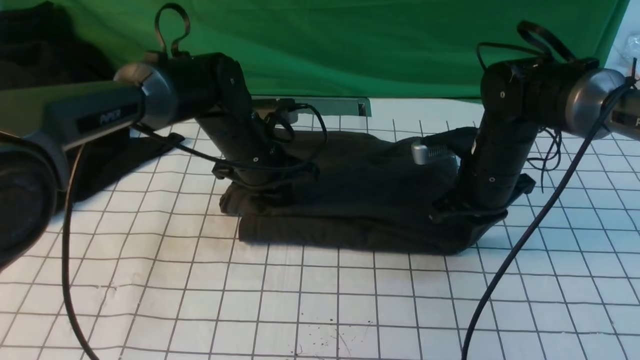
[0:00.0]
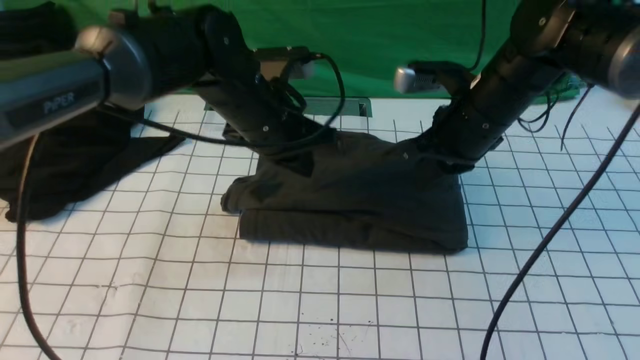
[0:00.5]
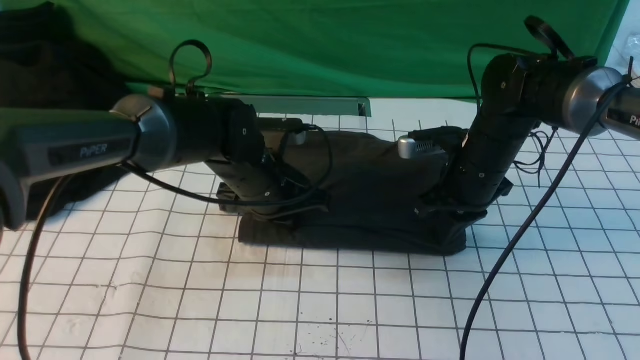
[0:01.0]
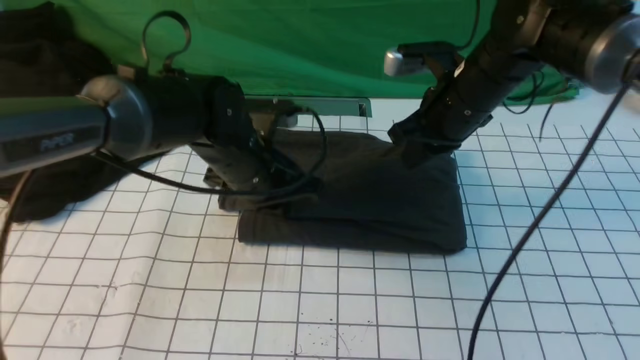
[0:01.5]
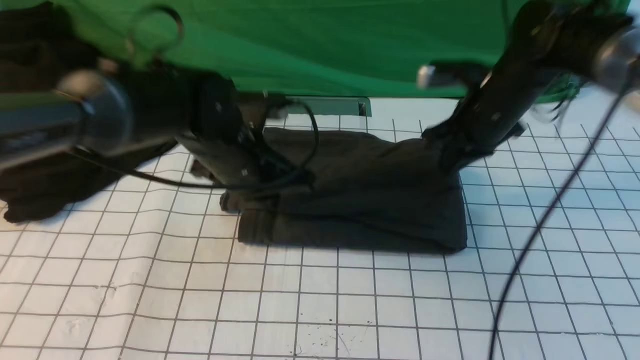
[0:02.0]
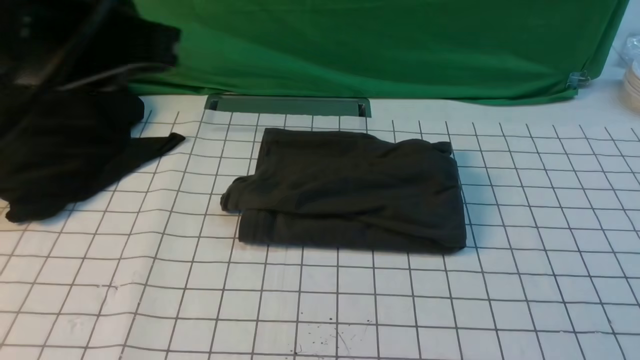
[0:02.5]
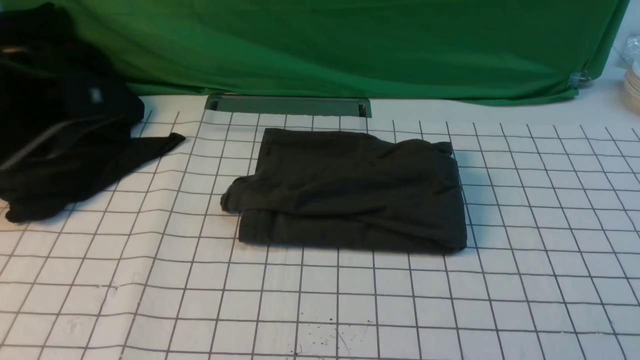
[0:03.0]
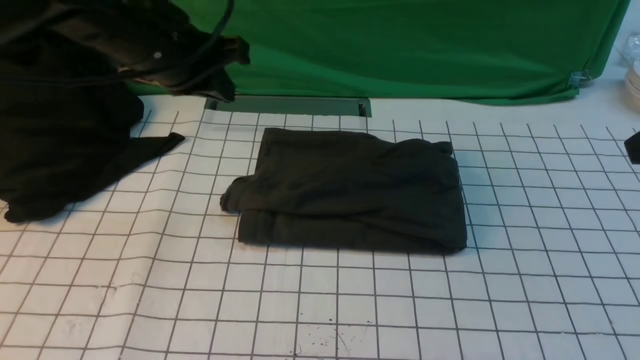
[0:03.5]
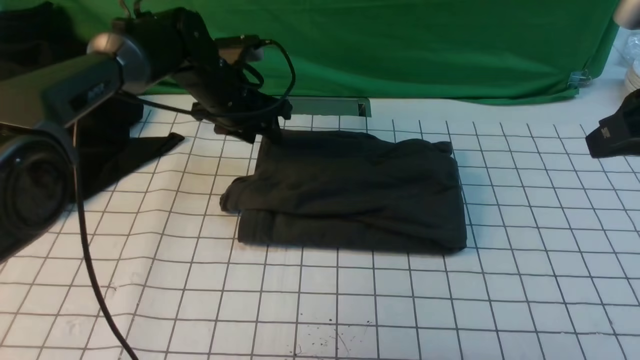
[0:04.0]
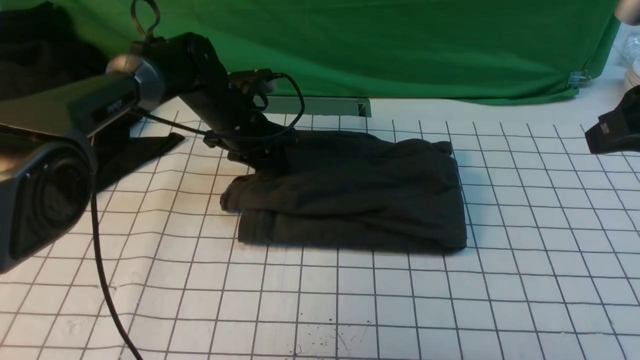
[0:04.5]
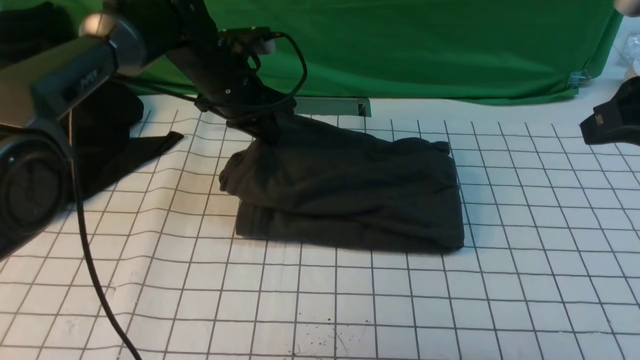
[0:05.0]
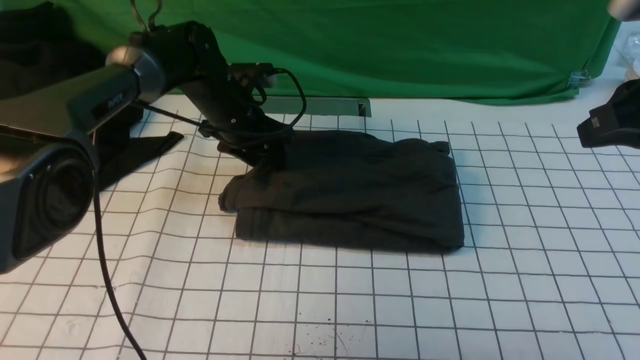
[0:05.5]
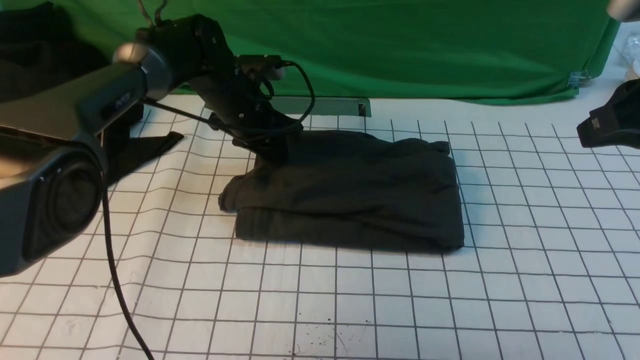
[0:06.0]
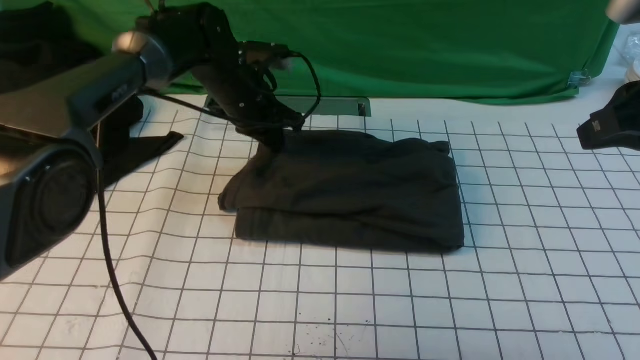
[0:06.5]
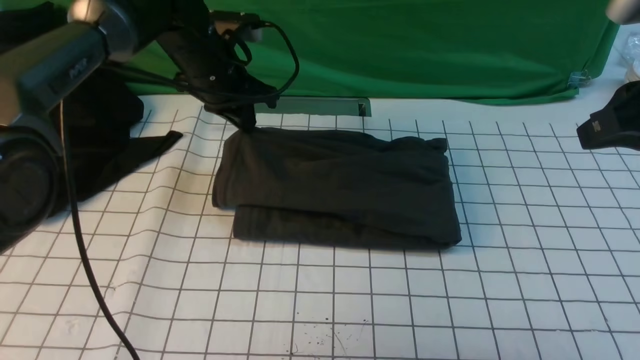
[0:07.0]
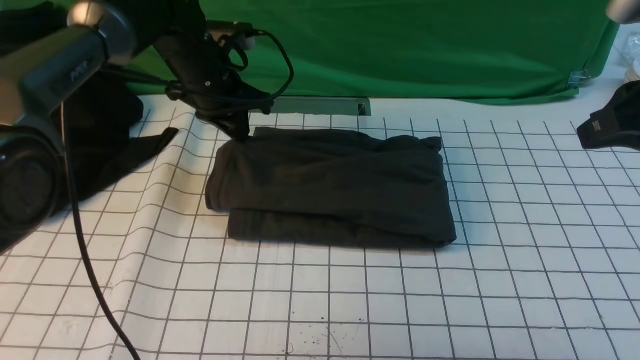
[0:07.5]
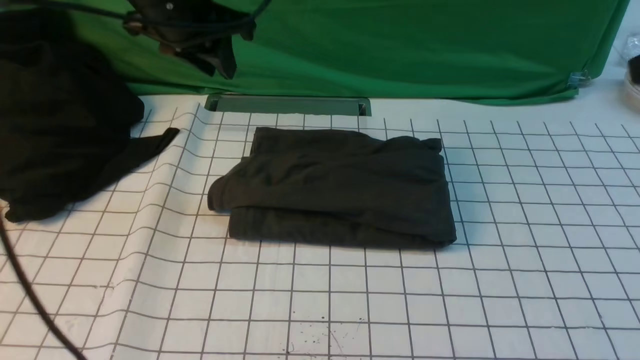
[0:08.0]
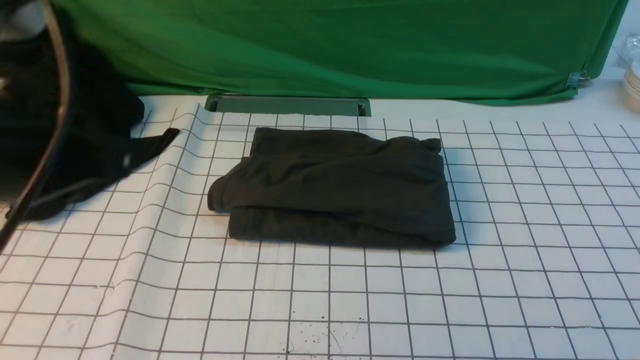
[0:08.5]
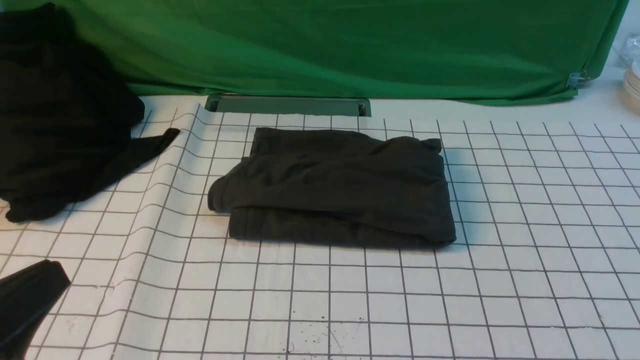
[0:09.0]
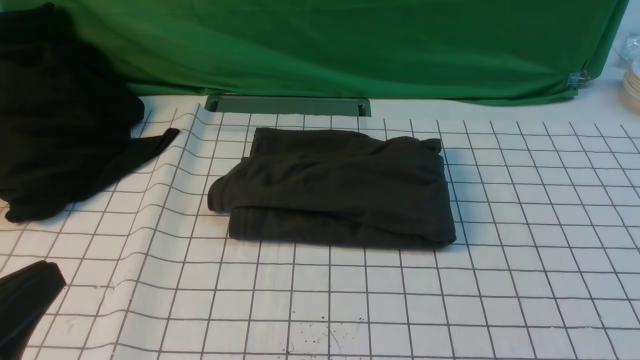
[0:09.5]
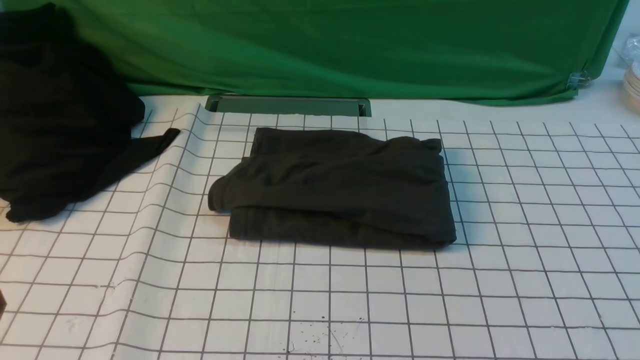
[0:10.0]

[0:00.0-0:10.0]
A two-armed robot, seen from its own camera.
0:00.0 to 0:02.0: The right gripper shifts about 10 cm upward; the left gripper heads backward and upward, covering some 10 cm.
0:02.0 to 0:04.0: The left gripper is displaced forward and downward by some 15 cm, and opens its fingers. Meanwhile the right gripper goes some 20 cm backward, upward and to the right.
0:04.0 to 0:06.0: The left gripper closes up.
0:06.0 to 0:08.0: The left gripper moves upward and backward, about 20 cm; the right gripper travels backward and upward by some 10 cm.
0:08.0 to 0:10.0: The right gripper moves backward and downward, some 20 cm, and opens its fingers. The left gripper travels backward by some 35 cm, and closes its fingers.

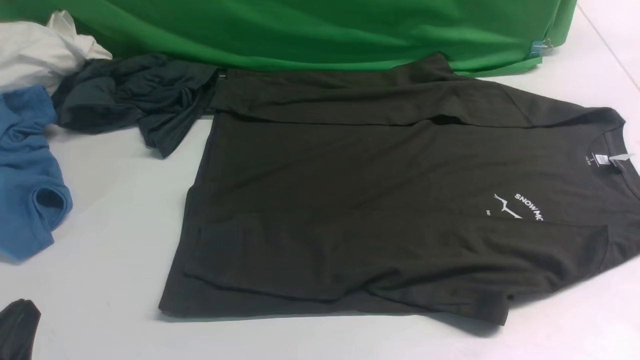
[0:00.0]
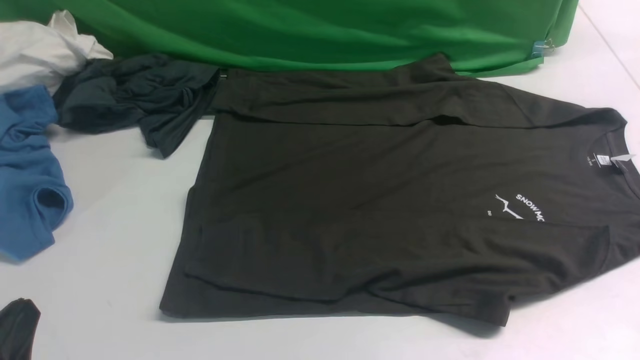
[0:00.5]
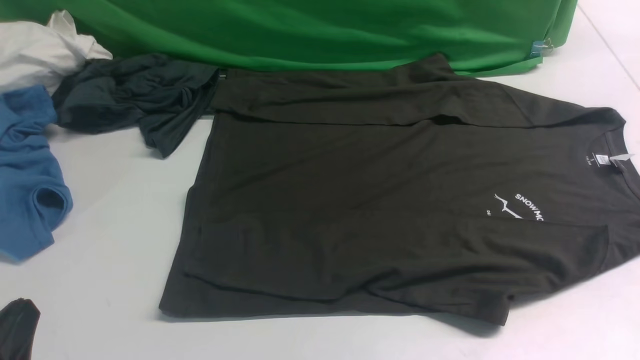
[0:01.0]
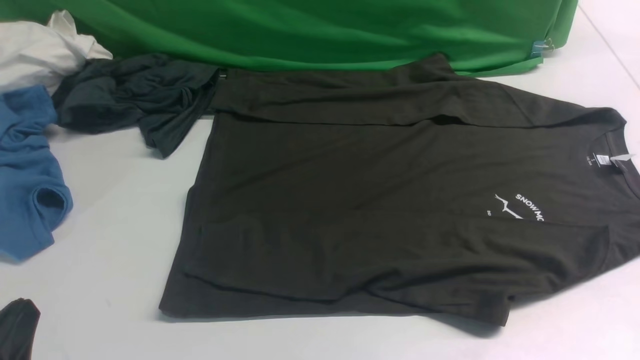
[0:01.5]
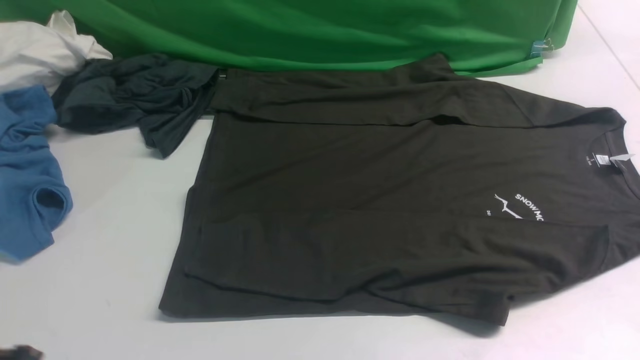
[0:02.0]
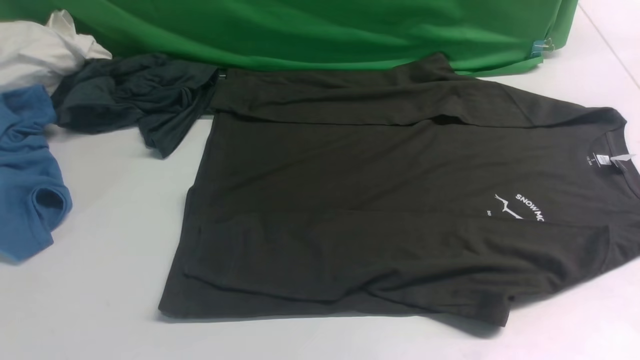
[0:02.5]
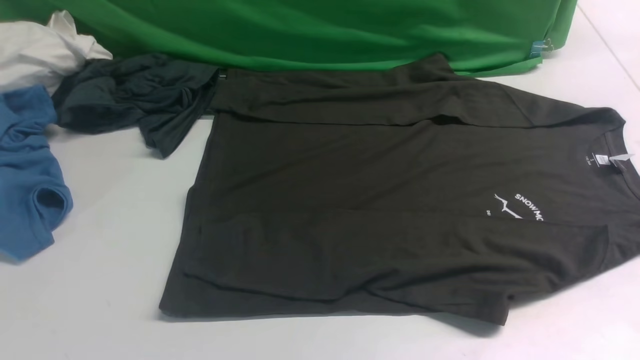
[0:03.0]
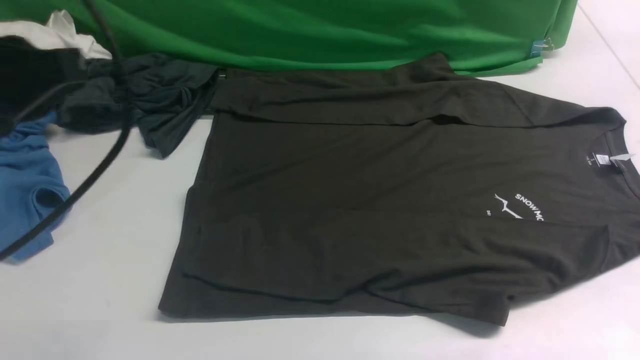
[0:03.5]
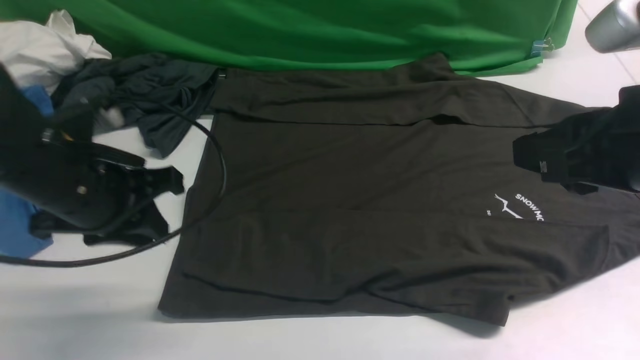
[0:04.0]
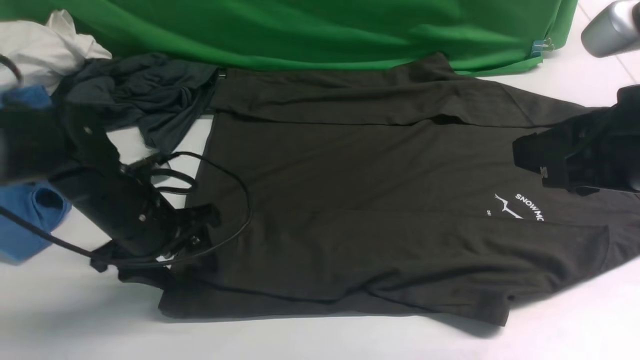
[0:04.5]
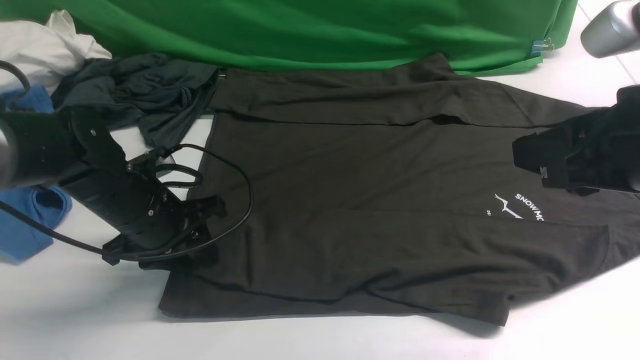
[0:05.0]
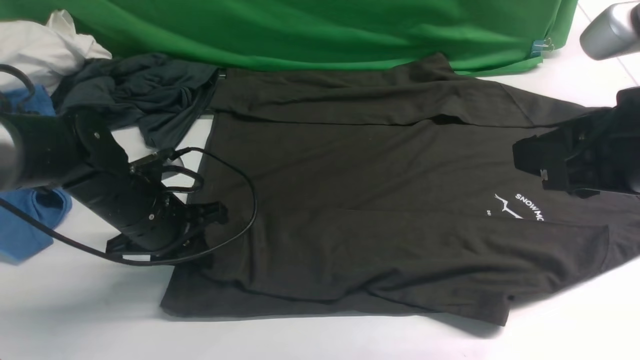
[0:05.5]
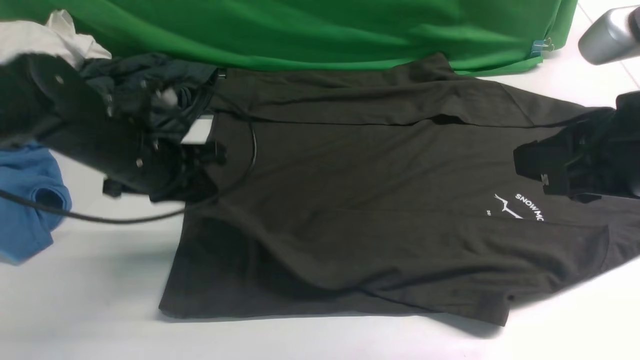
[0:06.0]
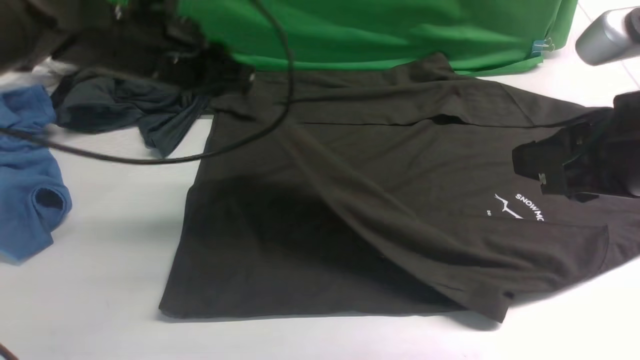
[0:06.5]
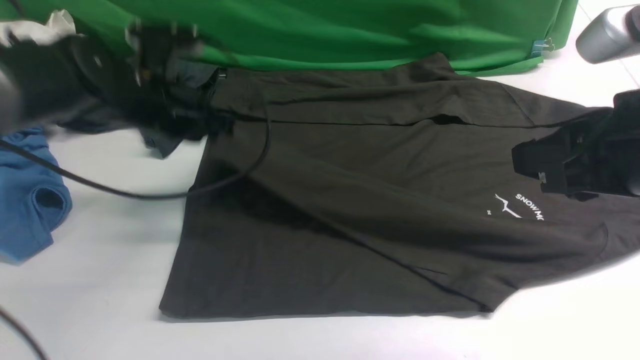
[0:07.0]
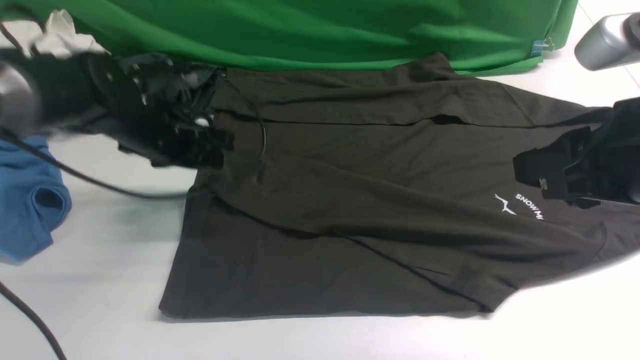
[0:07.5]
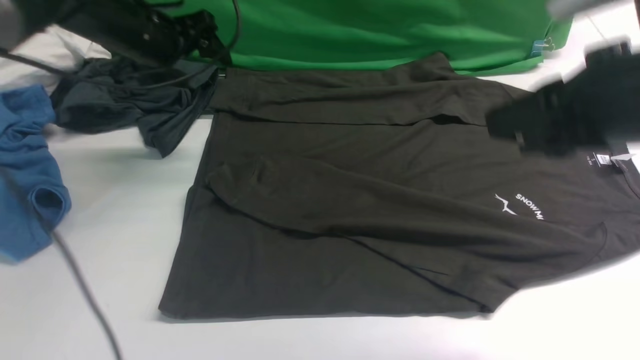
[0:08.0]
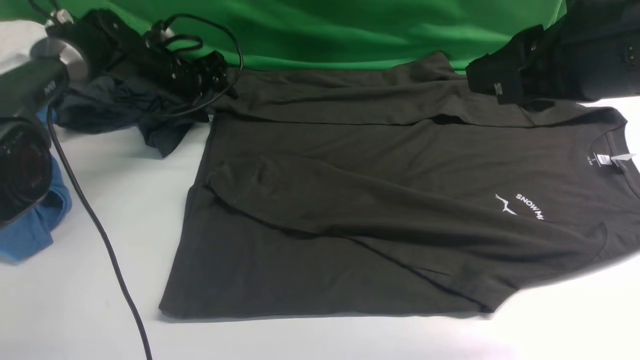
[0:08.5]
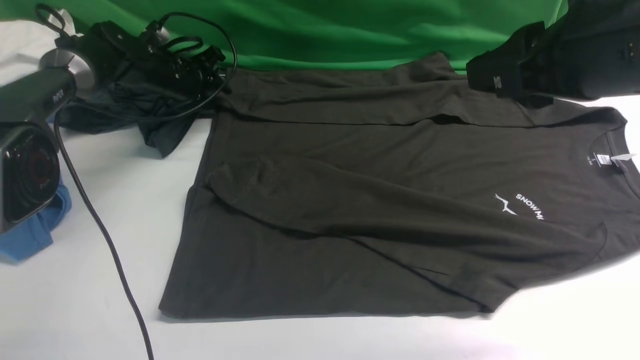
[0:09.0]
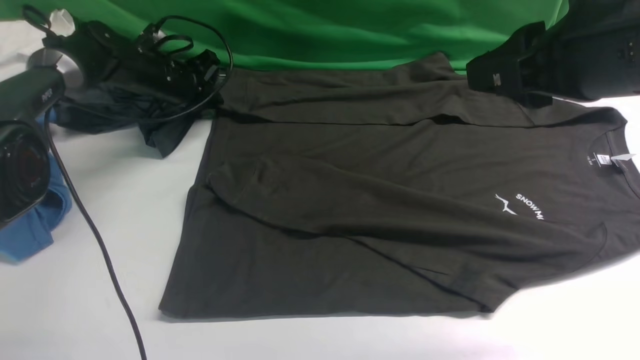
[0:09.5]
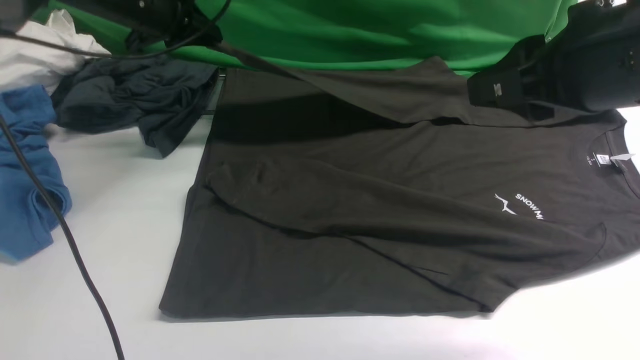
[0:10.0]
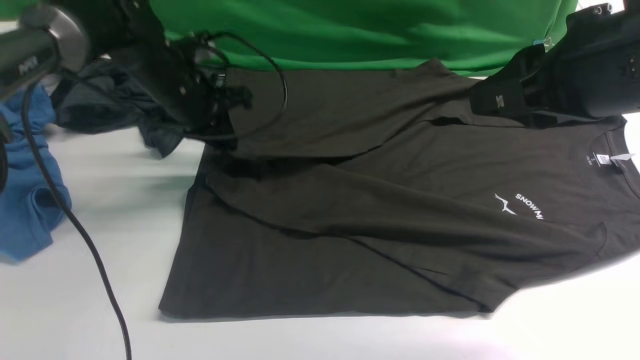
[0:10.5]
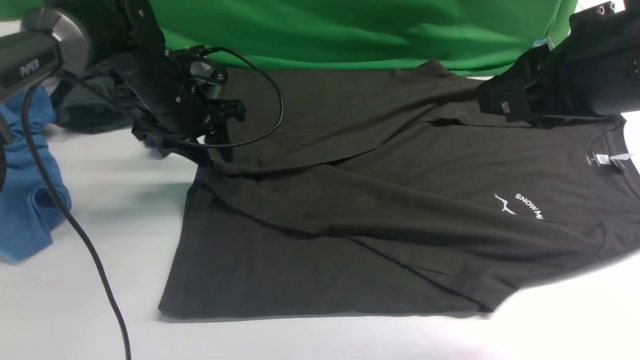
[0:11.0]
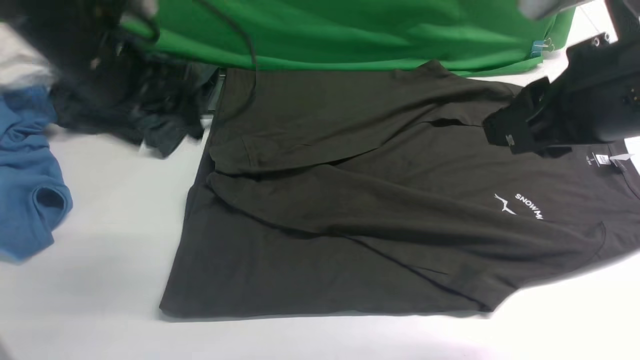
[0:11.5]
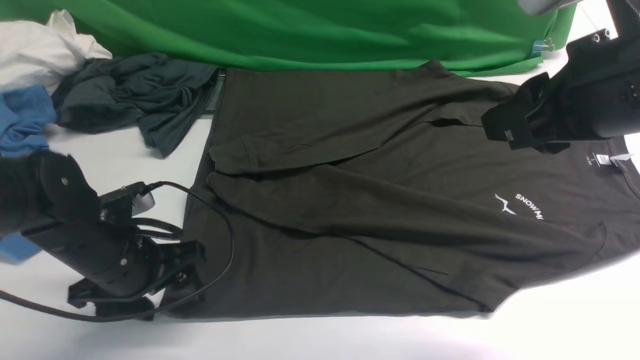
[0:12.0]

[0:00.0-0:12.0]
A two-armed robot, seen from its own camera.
Step, 0:00.0 to 0:05.5: use the left arm to clamp the cuff closest to it.
Step, 0:06.0 to 0:07.5: use the left arm to drag and place the cuff at the centered position on the left edge of the fabric.
Step, 0:08.0 to 0:09.5: use the left arm to clamp the cuff farthest from it.
Step, 0:10.0 to 0:11.0: use the left arm to drag and drop the cuff onto the cuff closest to the left arm.
0:02.0 to 0:04.0: The right gripper shifts about 20 cm forward, upward and to the left. The left gripper is displaced forward by approximately 20 cm.
0:04.0 to 0:06.0: The left gripper heads forward, covering approximately 5 cm, travels downward and back again, some 10 cm each way, and opens and closes again.
0:06.0 to 0:08.0: The left gripper is displaced forward by roughly 15 cm, and opens up.
0:08.0 to 0:10.0: The left gripper moves some 10 cm downward and comes back, and closes up.
0:10.0 to 0:12.0: The left gripper goes approximately 25 cm backward and downward, and opens.
